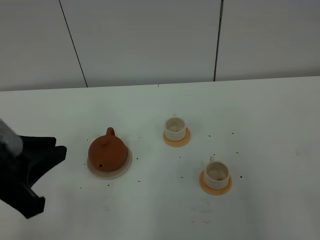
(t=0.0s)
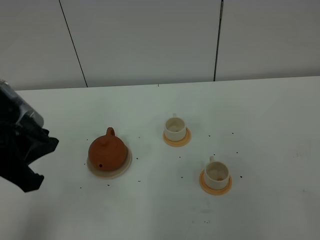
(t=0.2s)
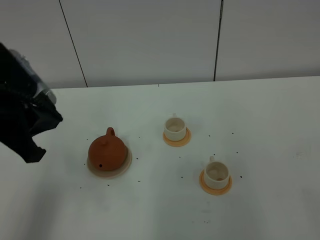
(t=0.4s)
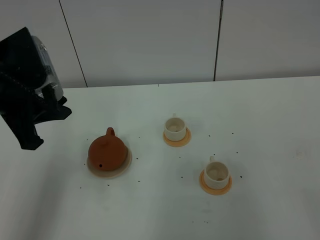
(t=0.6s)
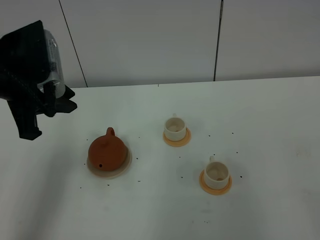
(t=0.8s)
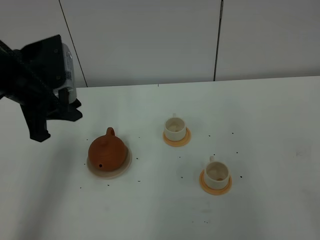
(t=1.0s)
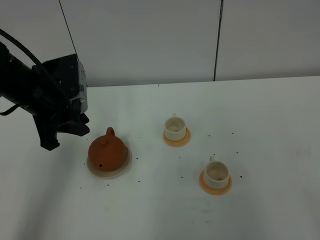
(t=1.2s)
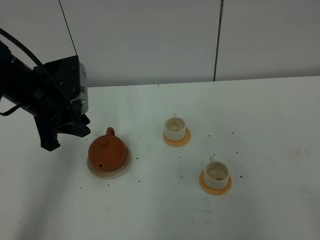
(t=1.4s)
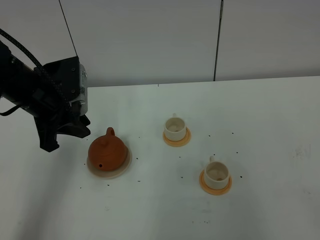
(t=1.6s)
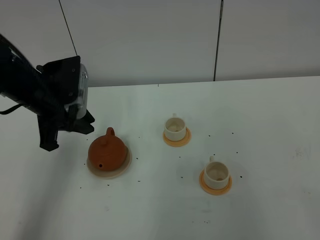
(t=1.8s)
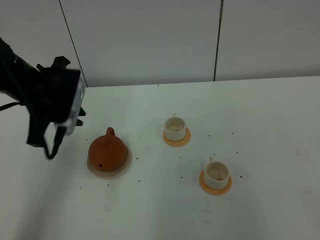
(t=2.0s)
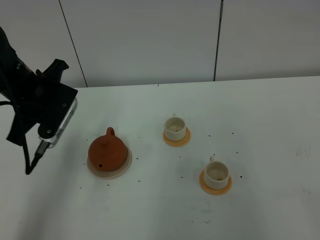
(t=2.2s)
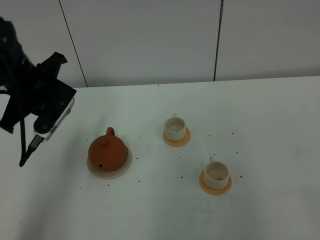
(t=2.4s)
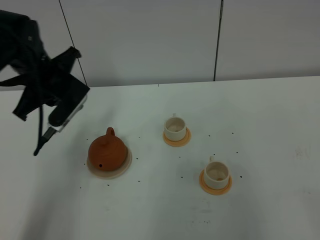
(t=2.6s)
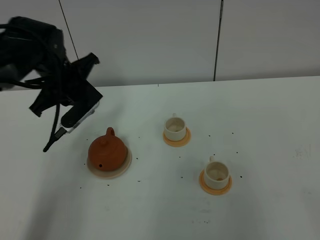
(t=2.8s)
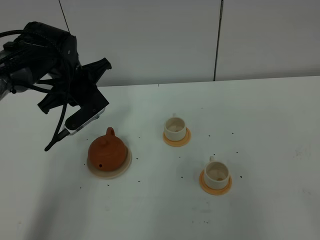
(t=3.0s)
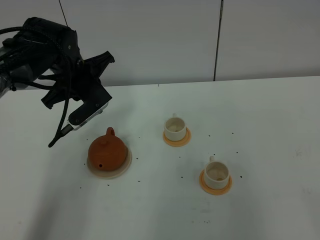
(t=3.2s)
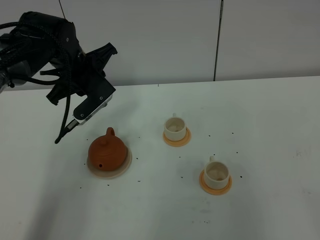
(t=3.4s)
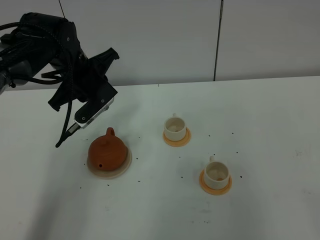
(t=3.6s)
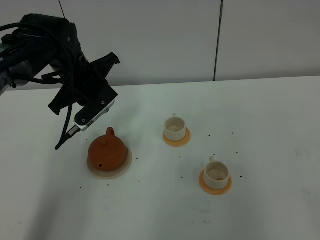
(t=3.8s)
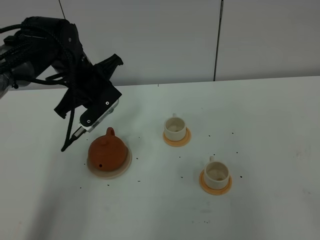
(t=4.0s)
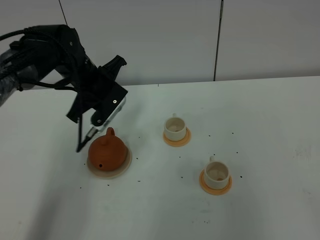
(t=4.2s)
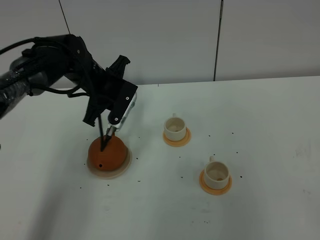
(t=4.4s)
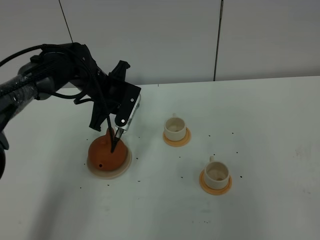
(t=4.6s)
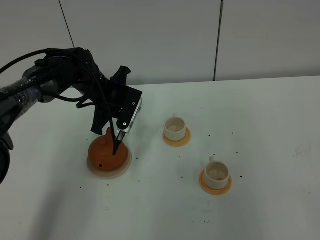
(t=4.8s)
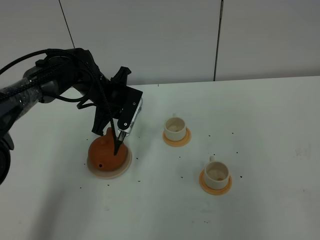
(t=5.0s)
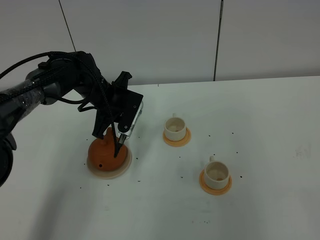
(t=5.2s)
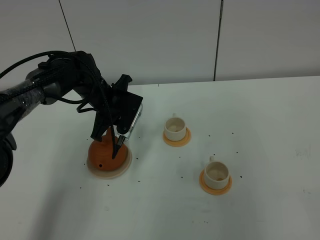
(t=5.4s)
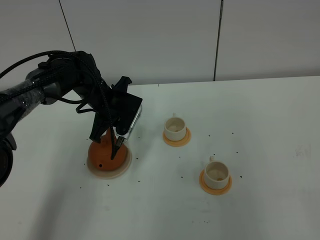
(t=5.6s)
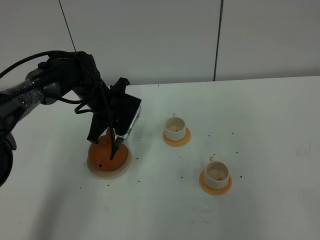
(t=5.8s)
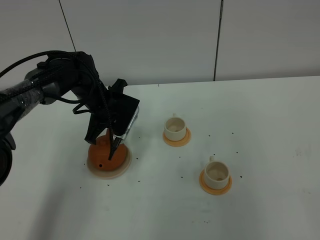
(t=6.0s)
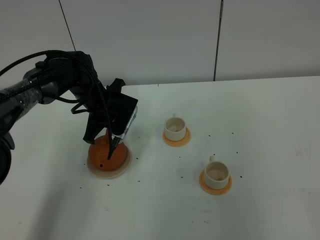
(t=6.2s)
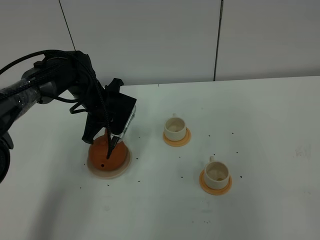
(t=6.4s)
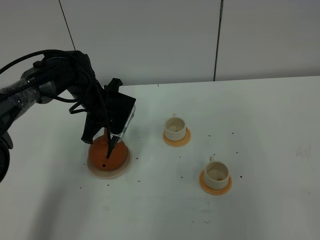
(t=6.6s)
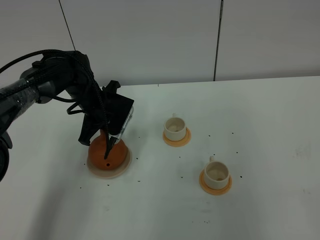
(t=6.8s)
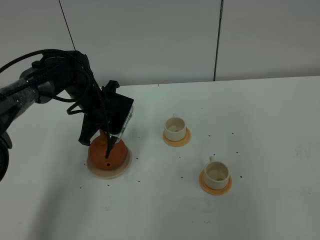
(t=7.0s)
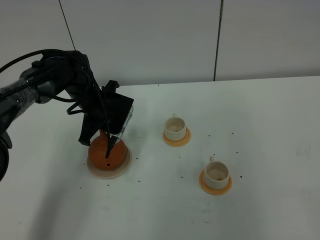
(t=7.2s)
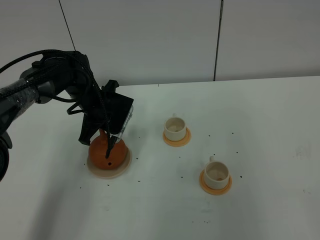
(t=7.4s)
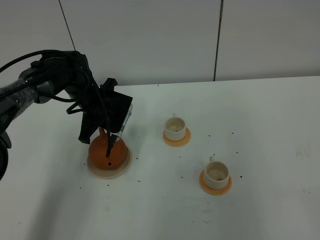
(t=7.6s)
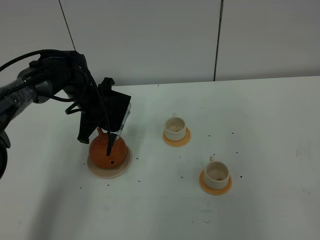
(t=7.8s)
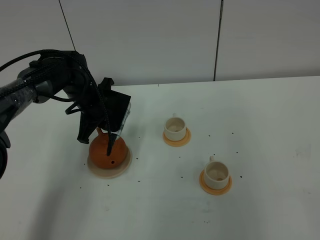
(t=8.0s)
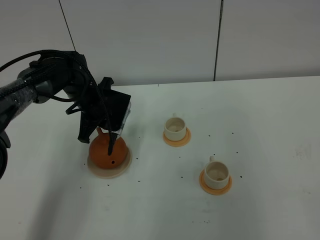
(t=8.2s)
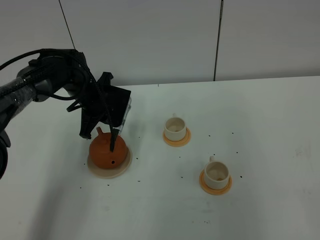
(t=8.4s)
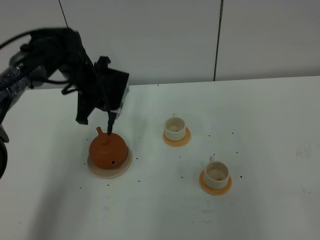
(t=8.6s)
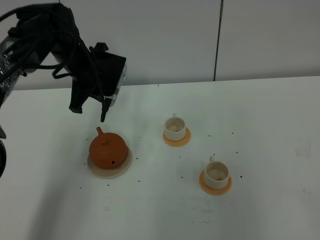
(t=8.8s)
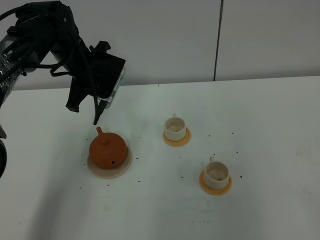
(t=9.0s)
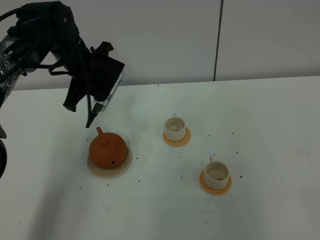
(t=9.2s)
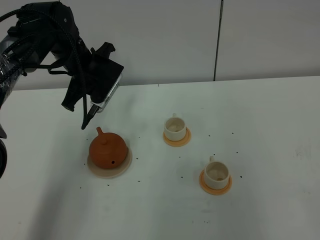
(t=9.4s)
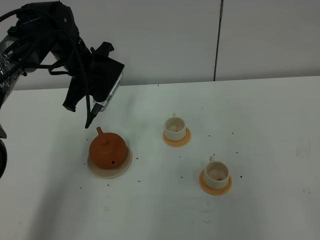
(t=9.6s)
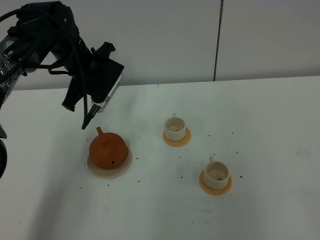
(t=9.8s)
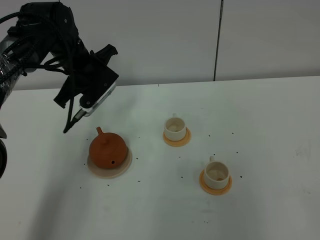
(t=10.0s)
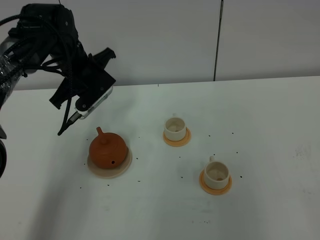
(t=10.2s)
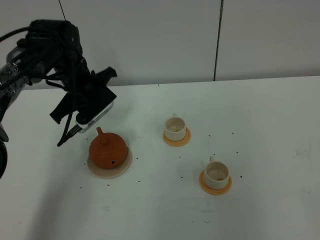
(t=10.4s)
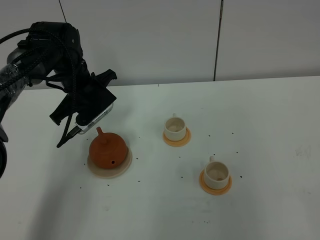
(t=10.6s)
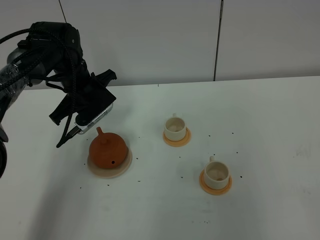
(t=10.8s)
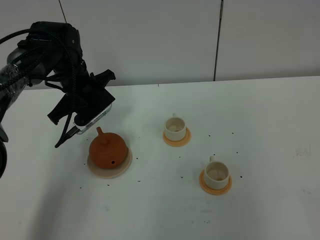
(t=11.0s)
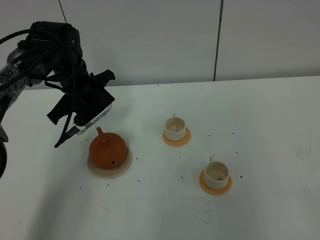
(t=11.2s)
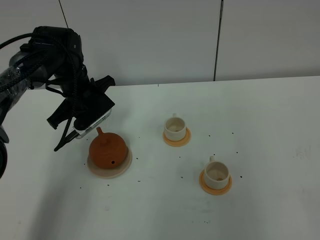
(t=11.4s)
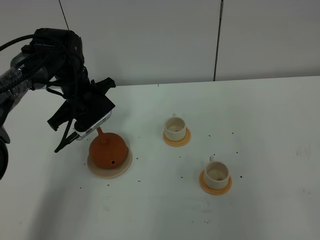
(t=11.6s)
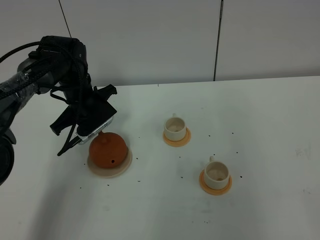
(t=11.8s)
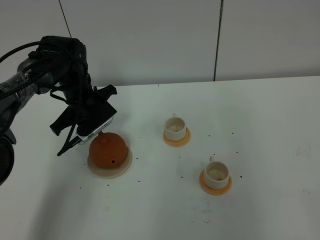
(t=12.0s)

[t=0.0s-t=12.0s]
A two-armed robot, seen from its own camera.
Task of the whole recording: grasp the brown teapot and pour the tea into the two white teacups one by one, put the brown teapot back in its original place.
t=0.0s to t=1.6s: The left gripper moves forward, about 20 cm.
t=1.6s to t=3.0s: The left gripper heads forward, covering roughly 10 cm.
t=3.0s to t=4.4s: The left gripper shifts by some 5 cm.
t=4.4s to t=7.6s: The grippers stay close to where they were, moving slightly.
t=7.6s to t=9.0s: The left gripper travels upward by roughly 10 cm.
t=10.4s to t=12.0s: The grippers move only a little.

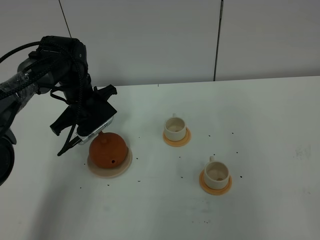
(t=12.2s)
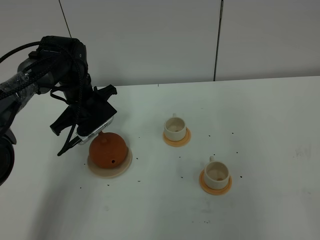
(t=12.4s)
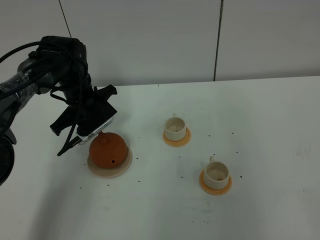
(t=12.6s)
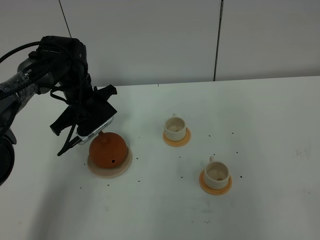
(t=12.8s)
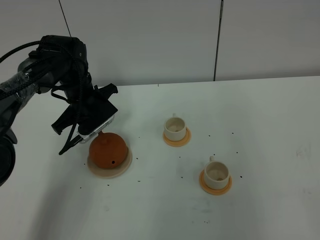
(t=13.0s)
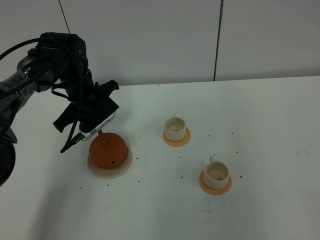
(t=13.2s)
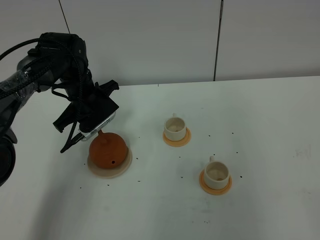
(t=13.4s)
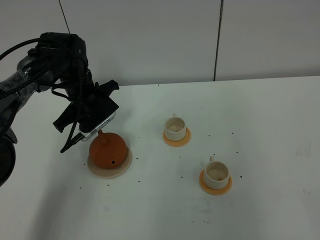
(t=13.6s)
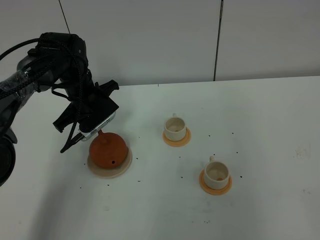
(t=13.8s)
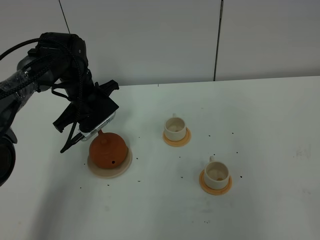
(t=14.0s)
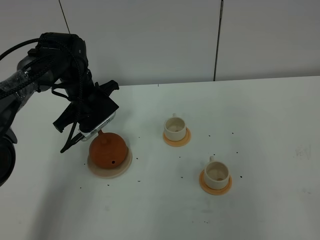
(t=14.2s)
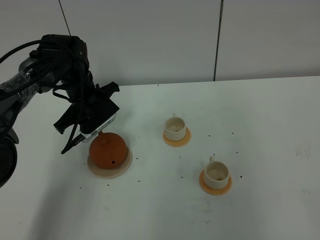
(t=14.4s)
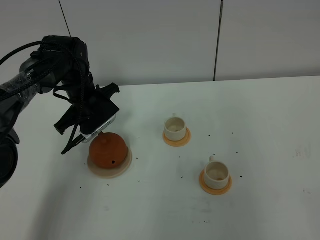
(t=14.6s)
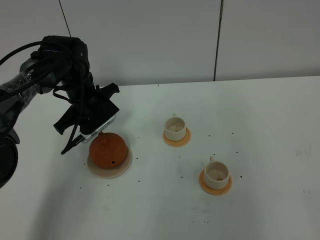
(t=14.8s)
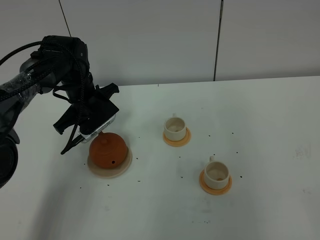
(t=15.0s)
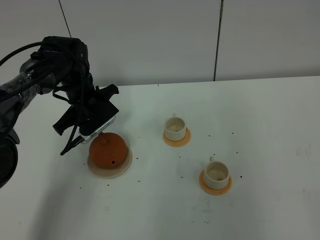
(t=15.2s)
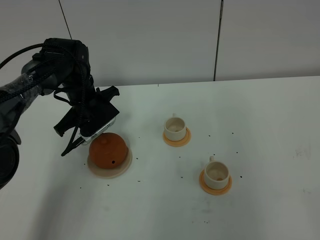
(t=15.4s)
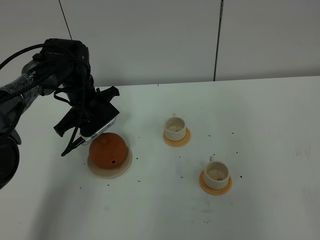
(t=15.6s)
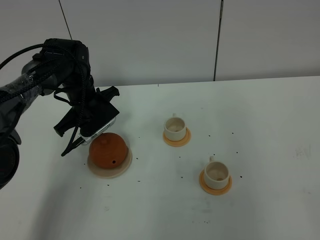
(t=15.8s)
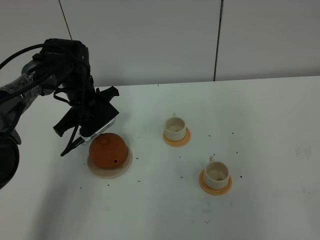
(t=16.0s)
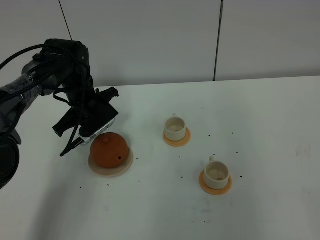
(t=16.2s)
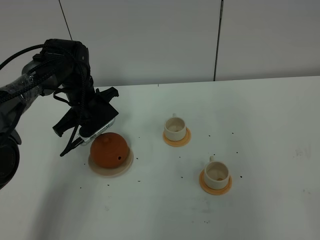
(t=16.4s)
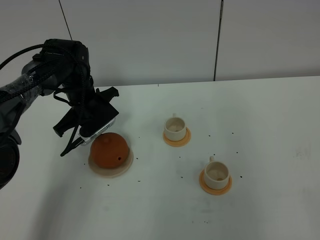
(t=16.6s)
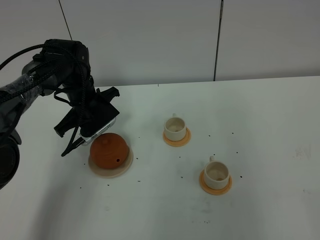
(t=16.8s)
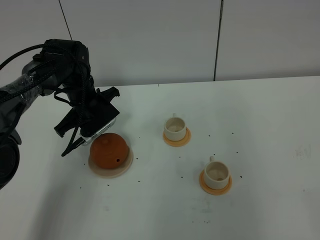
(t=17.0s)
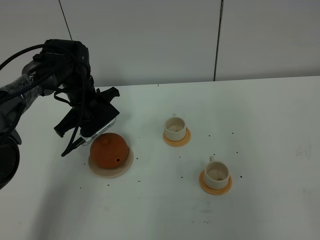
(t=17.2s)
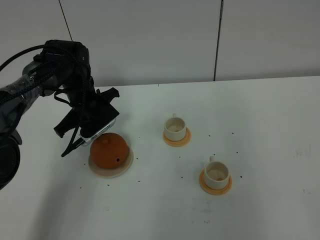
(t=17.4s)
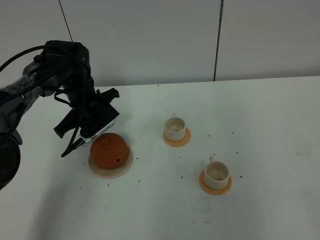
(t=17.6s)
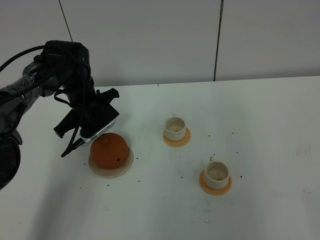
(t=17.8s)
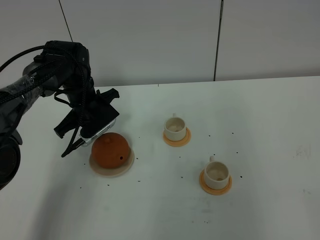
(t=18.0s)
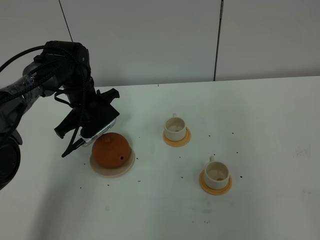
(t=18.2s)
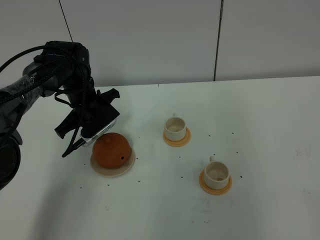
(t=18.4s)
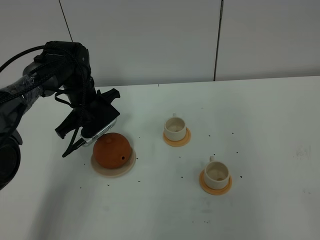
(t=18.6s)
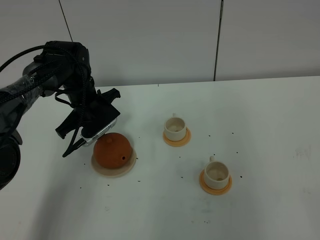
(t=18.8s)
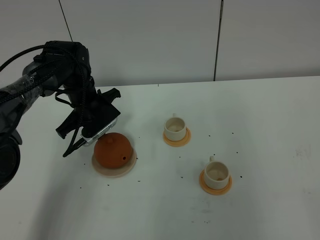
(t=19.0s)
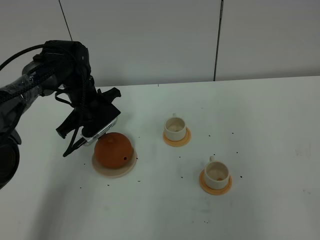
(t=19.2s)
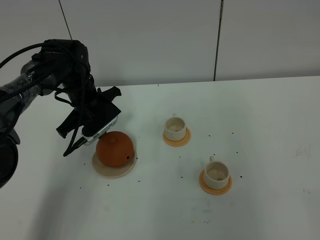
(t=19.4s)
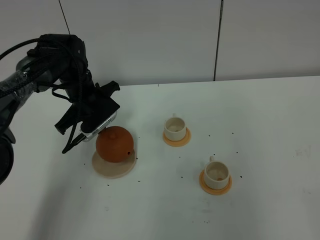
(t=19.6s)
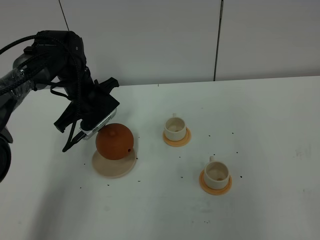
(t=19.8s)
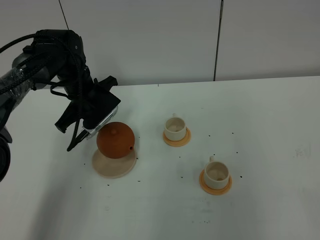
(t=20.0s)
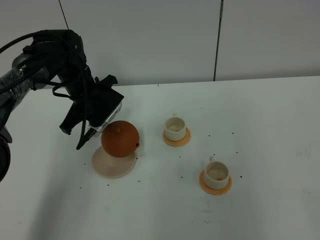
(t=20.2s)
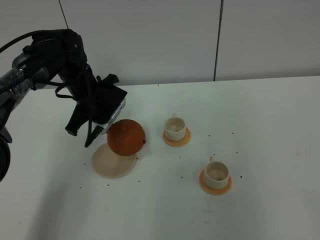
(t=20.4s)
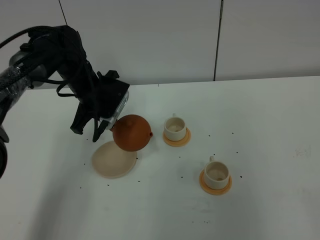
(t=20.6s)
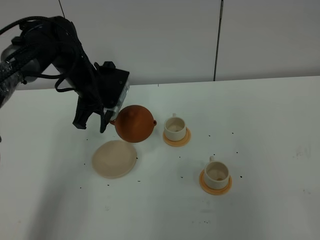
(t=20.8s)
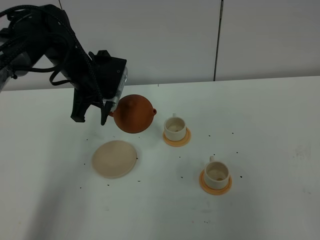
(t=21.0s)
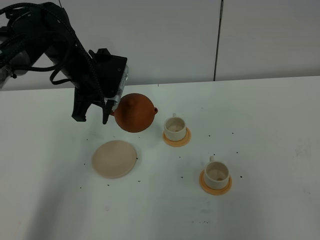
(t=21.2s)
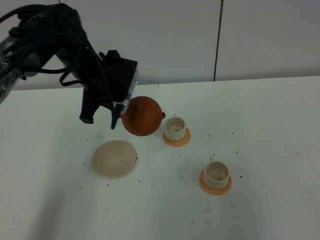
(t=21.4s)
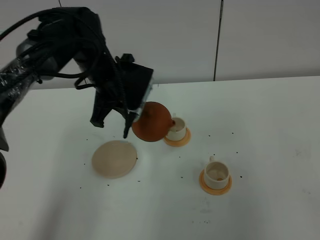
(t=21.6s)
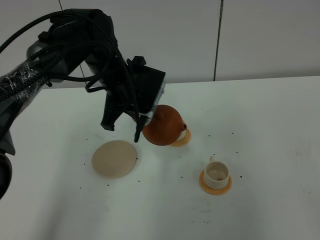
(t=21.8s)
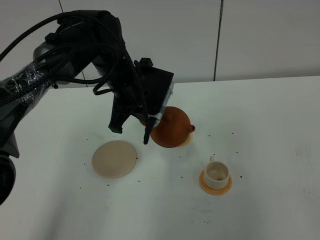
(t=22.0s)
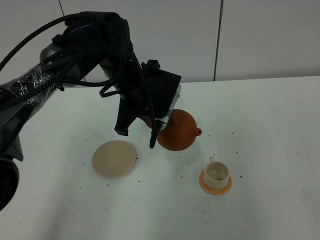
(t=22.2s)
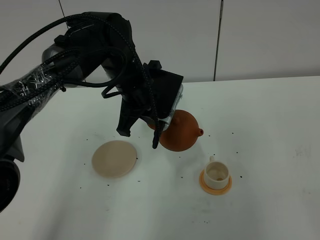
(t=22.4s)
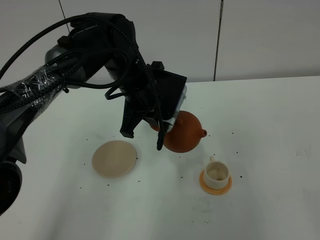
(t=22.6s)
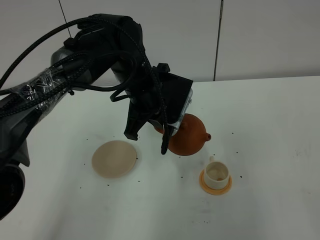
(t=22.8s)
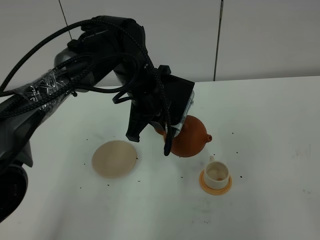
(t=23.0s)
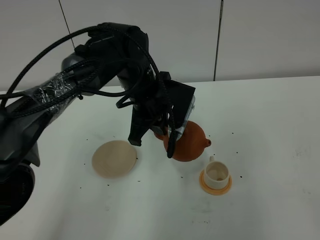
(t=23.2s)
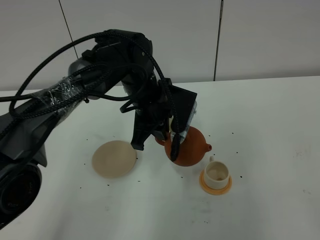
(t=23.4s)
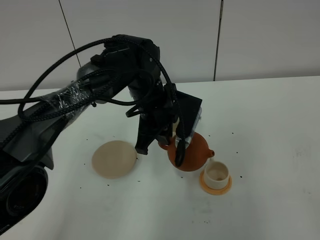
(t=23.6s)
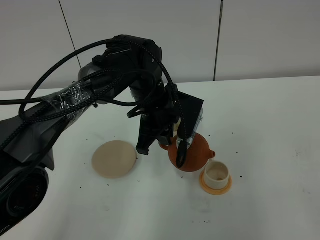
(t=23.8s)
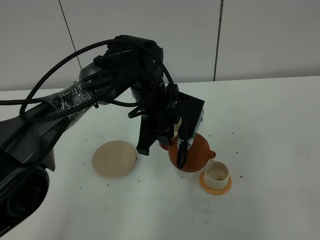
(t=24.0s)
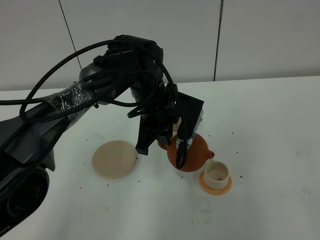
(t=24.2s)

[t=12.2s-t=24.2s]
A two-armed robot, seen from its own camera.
Task of the whole recording: grasp the brown teapot and pour the tea into the two white teacups one by one, put the brown teapot back in its original place.
Step, t=12.2s to t=19.8s: Pick up the teapot with the left gripper.
t=12.2s to t=13.8s: The left gripper opens.
t=13.8s to t=15.2s: The two grippers keep their place.
t=15.2s to t=16.6s: The left gripper closes.
t=16.6s to t=18.2s: The two grippers keep their place.
t=18.2s to t=19.8s: The grippers make only small movements.
t=19.8s to t=21.2s: The left gripper moves upward, about 5 cm.
t=21.2s to t=22.6s: The left gripper moves to the right, roughly 10 cm.
t=22.6s to t=24.2s: The left gripper changes place by about 5 cm.
